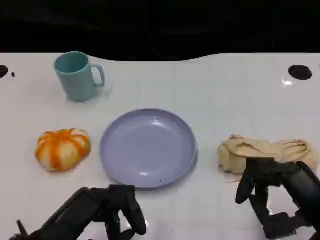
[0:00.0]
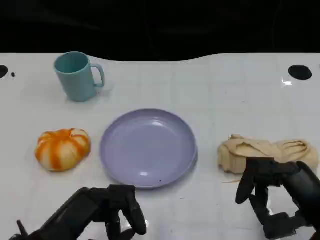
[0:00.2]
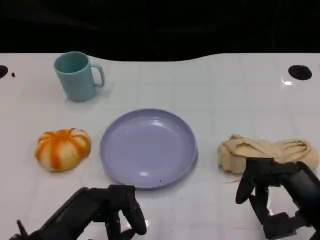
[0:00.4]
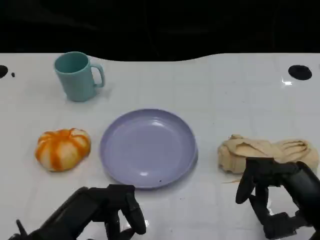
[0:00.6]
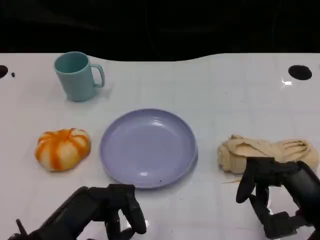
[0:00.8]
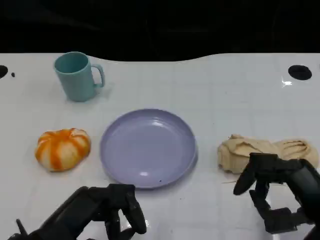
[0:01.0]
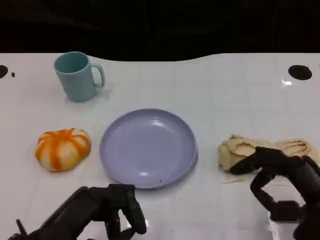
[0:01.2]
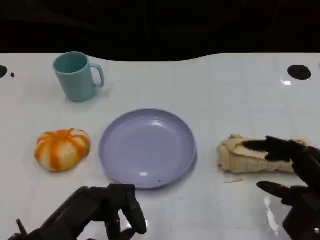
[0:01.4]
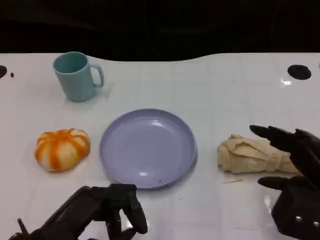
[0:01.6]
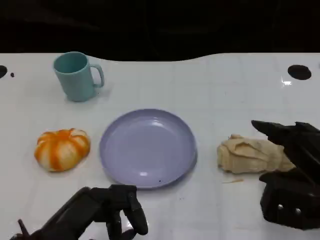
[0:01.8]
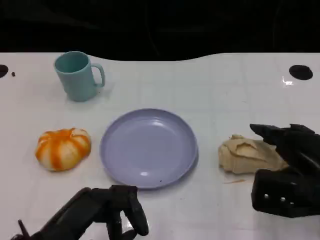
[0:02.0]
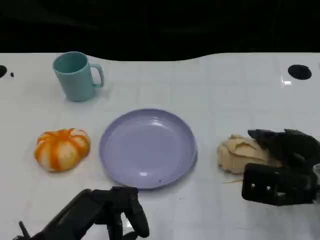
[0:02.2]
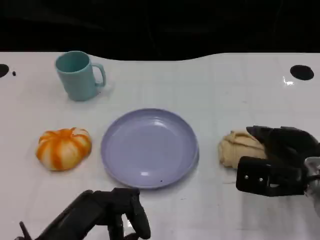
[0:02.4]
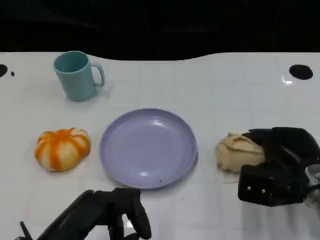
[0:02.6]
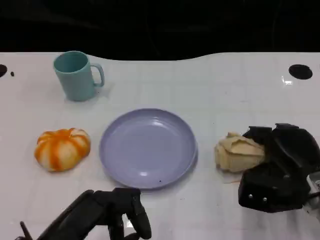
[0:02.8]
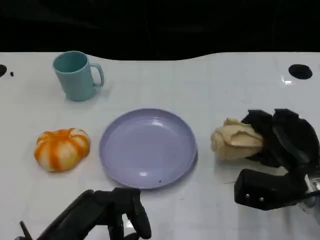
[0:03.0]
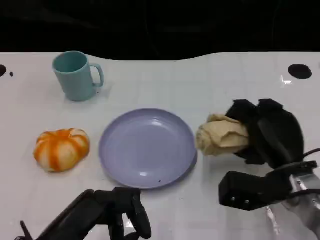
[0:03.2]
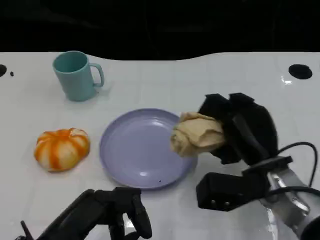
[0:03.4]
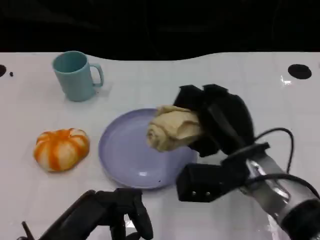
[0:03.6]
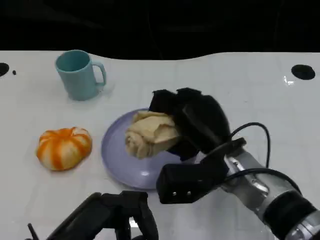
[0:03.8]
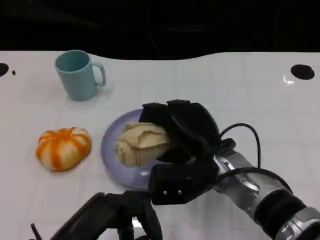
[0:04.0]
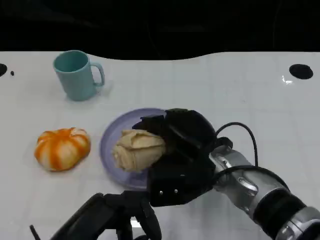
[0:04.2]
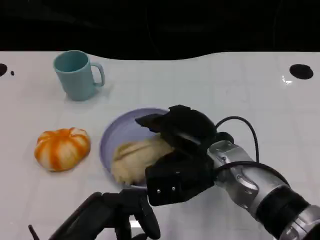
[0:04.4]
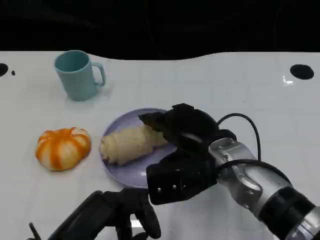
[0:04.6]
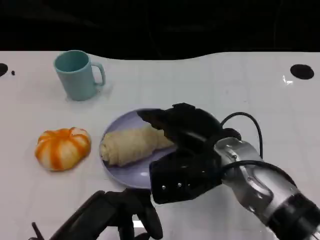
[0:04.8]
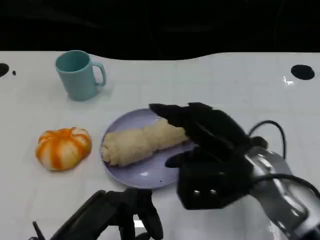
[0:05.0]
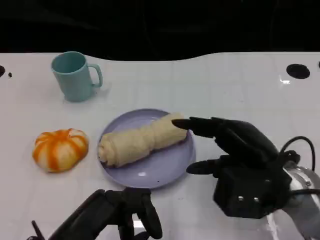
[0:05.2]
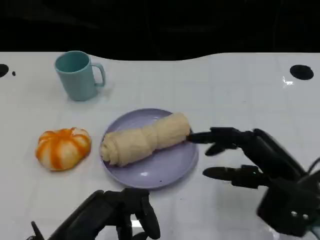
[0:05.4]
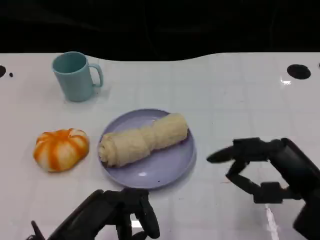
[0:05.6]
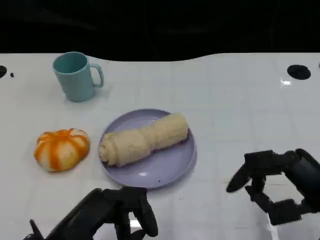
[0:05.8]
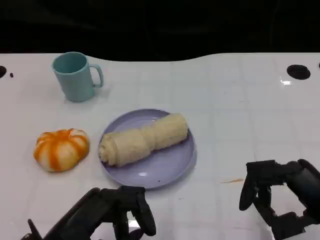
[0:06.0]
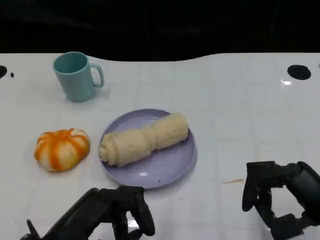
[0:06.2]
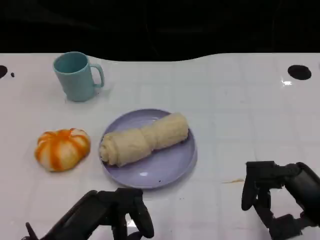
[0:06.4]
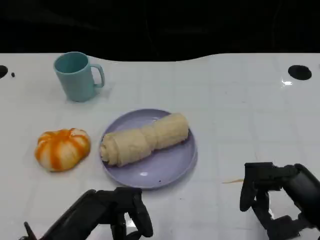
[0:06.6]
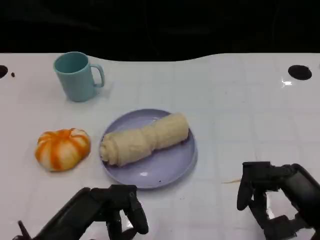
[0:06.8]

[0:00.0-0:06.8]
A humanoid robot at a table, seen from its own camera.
Task of the whole recording: Grasp the towel on the left side of the plate with the left hand and place it into the plate.
0:01.4 to 0:02.8: The right hand goes roughly 10 cm forward and downward.
0:02.8 to 0:04.0: The right hand is displaced to the left by approximately 15 cm.
0:04.0 to 0:05.4: The right hand travels to the right and backward by approximately 15 cm.
0:05.4 to 0:06.8: The right hand shifts by roughly 5 cm.

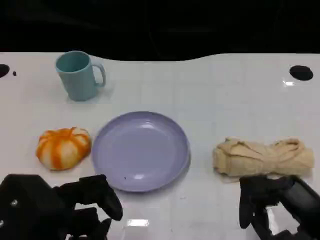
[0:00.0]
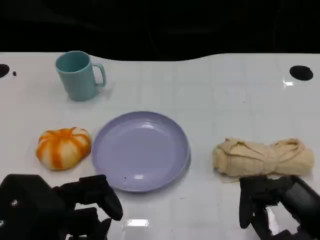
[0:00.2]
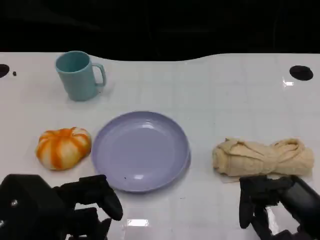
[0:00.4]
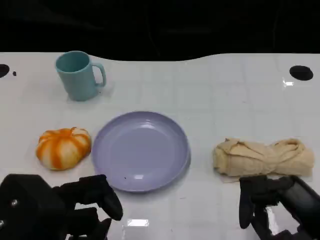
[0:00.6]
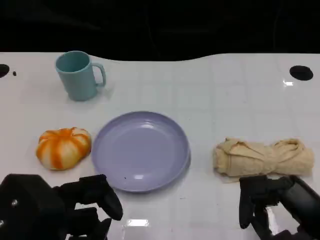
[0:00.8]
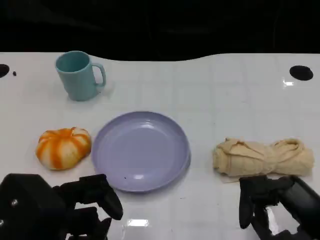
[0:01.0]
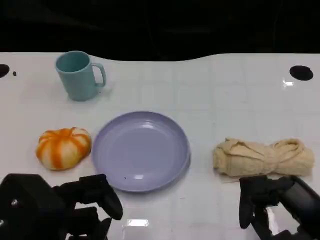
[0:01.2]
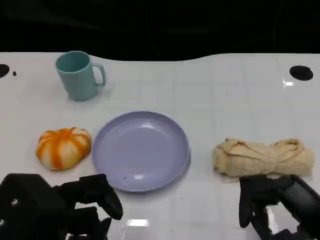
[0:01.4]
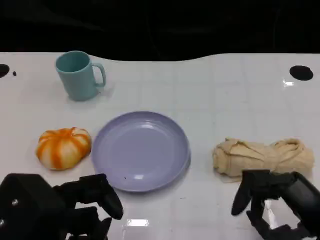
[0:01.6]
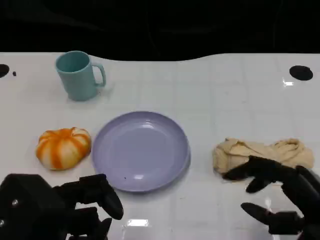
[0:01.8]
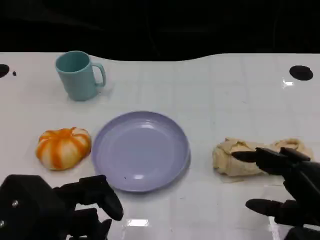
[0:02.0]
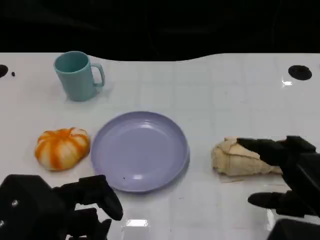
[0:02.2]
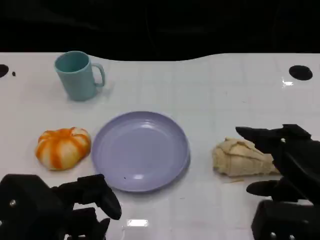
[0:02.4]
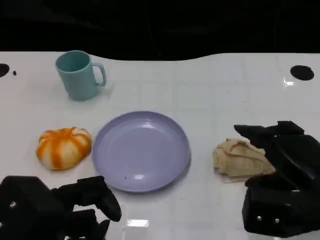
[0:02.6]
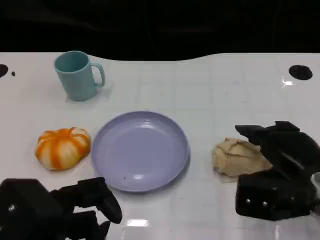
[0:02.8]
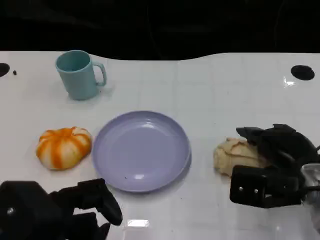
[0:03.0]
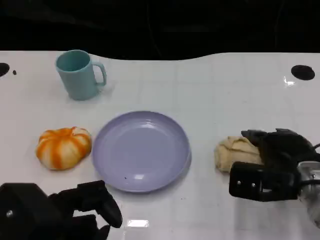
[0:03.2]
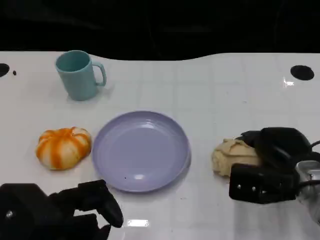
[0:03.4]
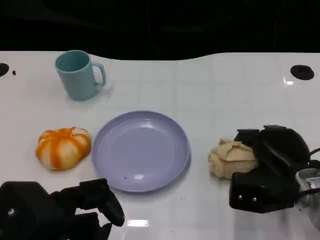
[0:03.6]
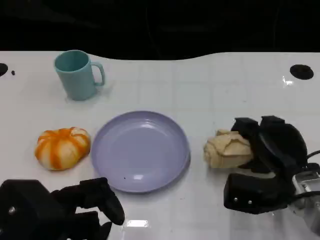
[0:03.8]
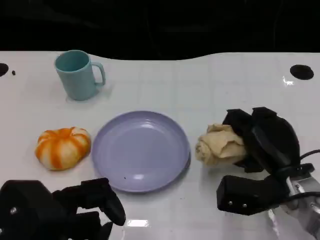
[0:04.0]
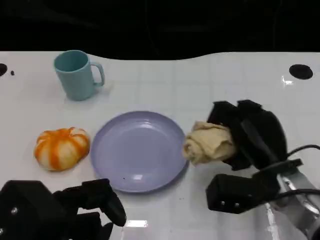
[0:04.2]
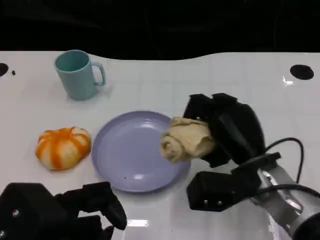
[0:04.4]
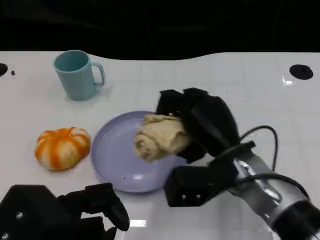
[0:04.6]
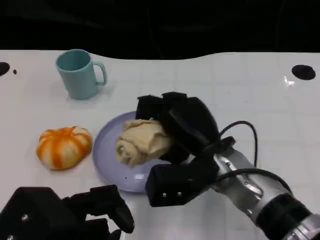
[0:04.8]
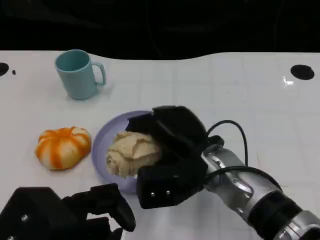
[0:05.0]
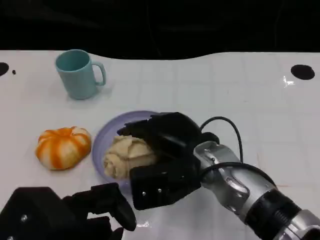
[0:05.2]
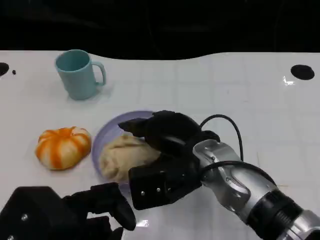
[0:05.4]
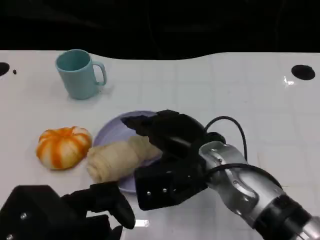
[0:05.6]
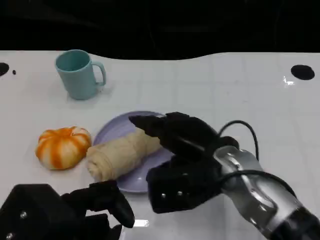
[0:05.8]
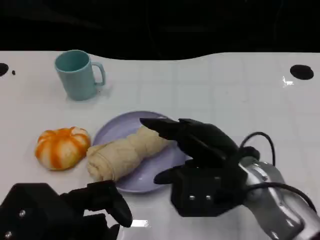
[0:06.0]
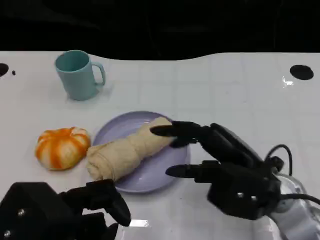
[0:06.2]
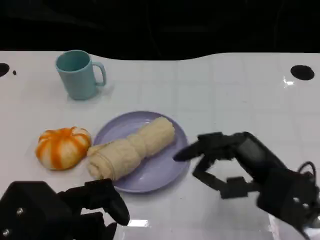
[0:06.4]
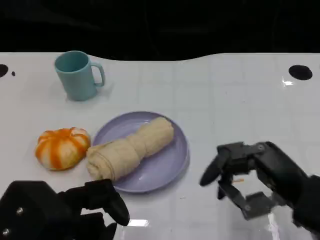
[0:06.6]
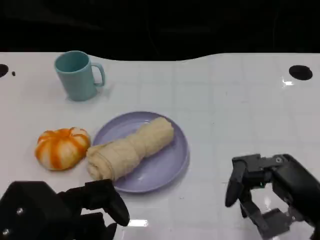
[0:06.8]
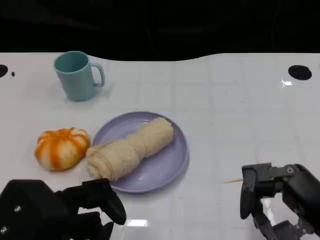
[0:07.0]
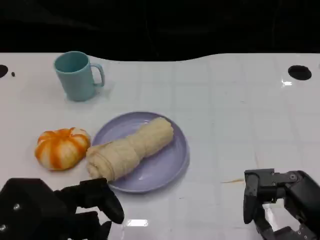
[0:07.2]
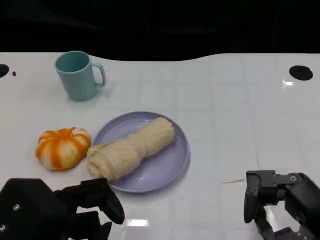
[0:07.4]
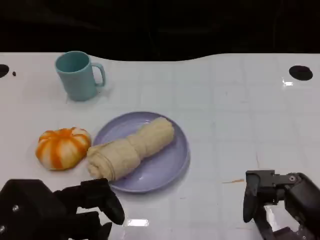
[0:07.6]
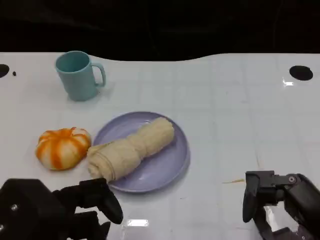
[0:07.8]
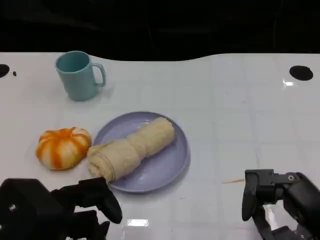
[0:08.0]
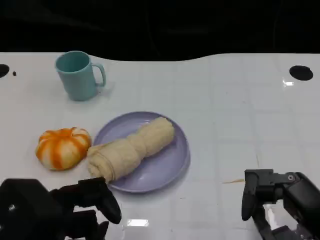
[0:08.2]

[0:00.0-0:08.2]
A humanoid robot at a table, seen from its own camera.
Task of the whole recording: Grasp the towel on the left side of the plate with the left hand and place it into the plate.
0:00.0 to 0:01.6: Both hands stay put.
0:01.6 to 0:03.2: The right hand travels forward by some 10 cm.
0:03.2 to 0:05.0: The right hand goes approximately 15 cm to the left.
0:05.0 to 0:06.6: The right hand shifts about 20 cm to the right and backward.
0:06.6 to 0:08.2: There are only small adjustments of the hands.

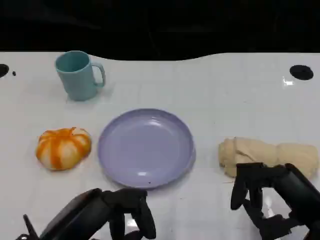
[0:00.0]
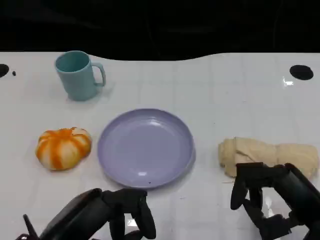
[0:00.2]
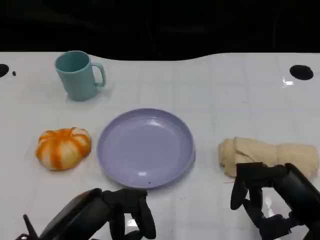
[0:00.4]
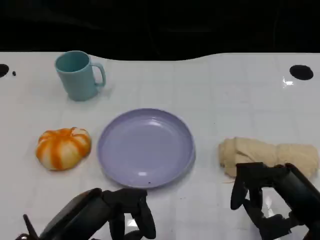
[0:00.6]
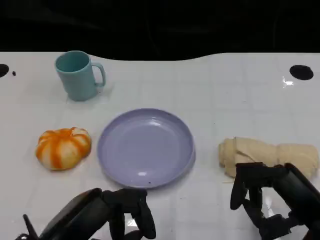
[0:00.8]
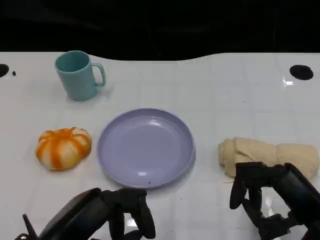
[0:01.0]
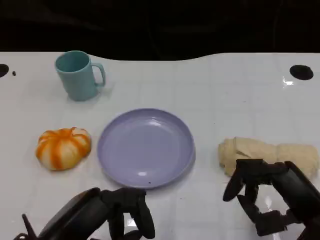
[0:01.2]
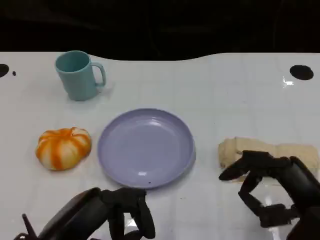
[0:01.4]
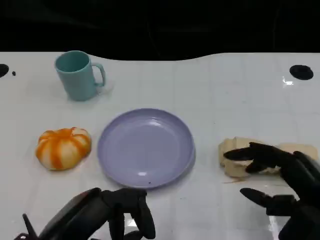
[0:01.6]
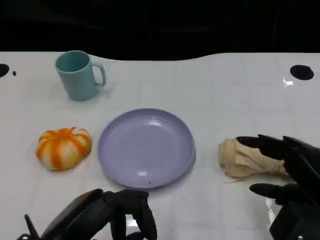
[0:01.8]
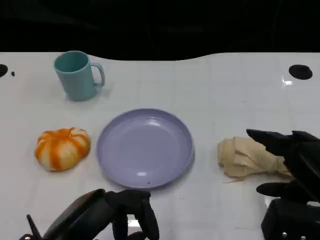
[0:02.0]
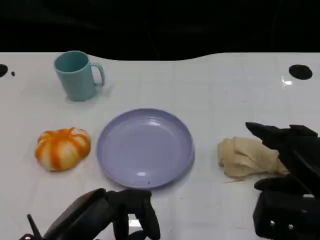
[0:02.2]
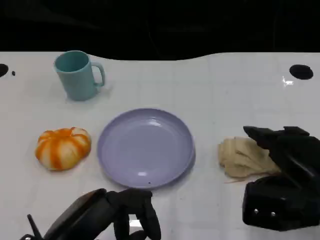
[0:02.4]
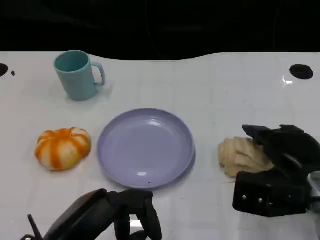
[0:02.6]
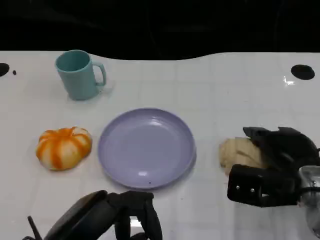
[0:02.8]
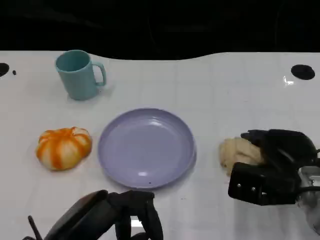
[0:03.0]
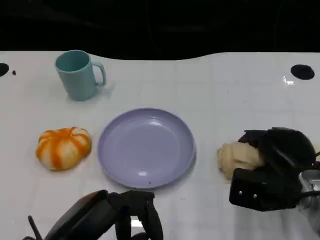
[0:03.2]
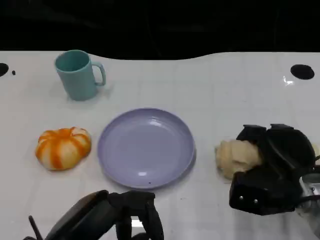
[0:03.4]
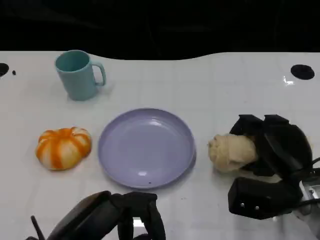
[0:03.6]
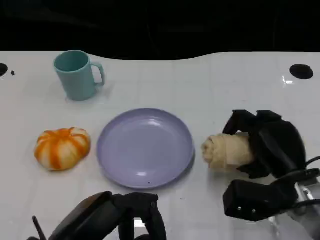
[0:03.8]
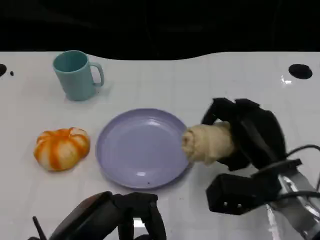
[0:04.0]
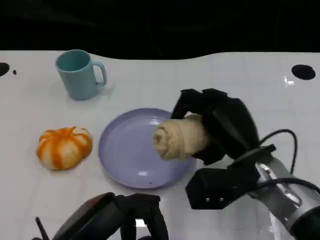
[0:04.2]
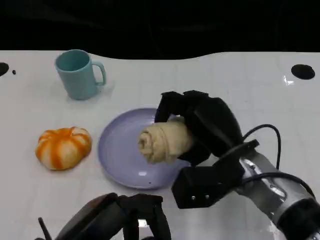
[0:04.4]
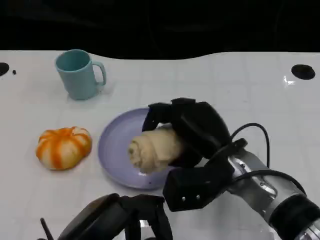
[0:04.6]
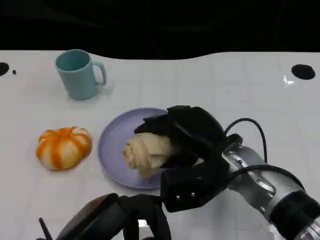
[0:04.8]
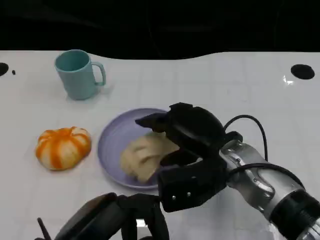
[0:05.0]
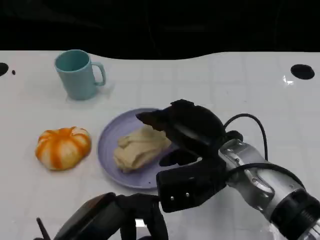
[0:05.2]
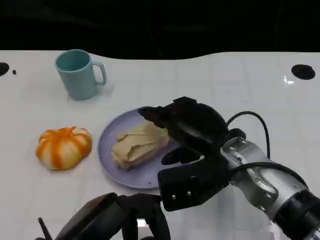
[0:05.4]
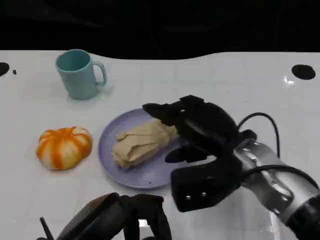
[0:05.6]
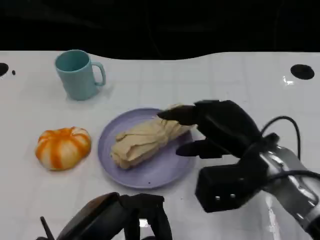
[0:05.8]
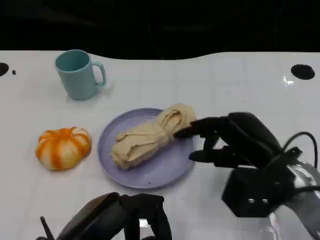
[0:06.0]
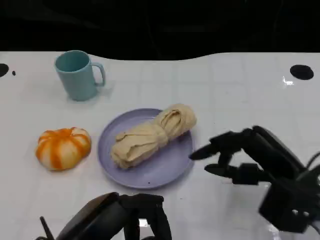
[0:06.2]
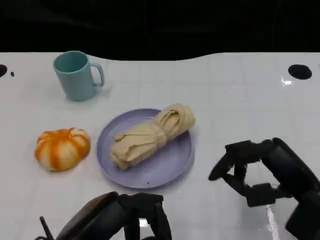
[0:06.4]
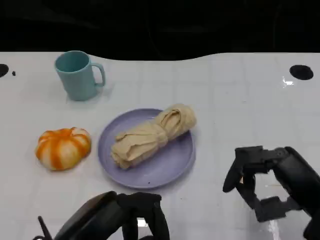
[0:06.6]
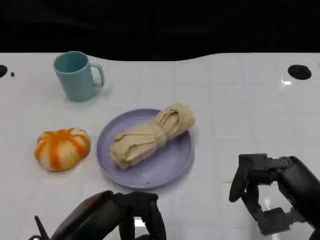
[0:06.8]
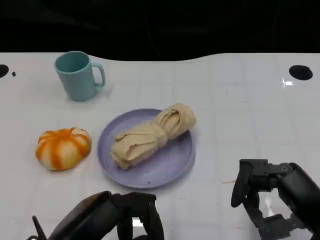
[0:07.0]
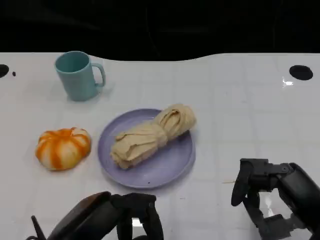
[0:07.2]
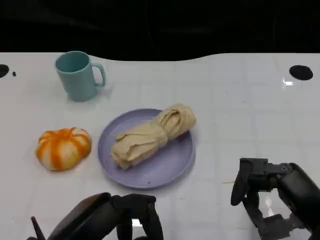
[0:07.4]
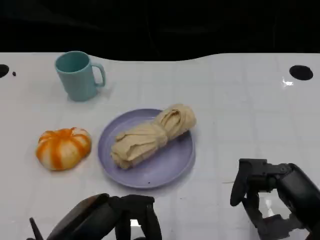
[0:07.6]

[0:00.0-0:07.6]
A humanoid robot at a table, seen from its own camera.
Task of the whole recording: Grasp the towel on the left side of the plate with the left hand and place it into the plate.
0:00.0 to 0:01.6: The hands make only small movements.
0:01.6 to 0:03.0: The right hand moves forward, about 10 cm.
0:03.0 to 0:04.6: The right hand travels to the left by about 10 cm.
0:04.6 to 0:06.0: The right hand travels to the right by some 10 cm.
0:06.0 to 0:07.6: The right hand travels backward and to the right by some 10 cm.
